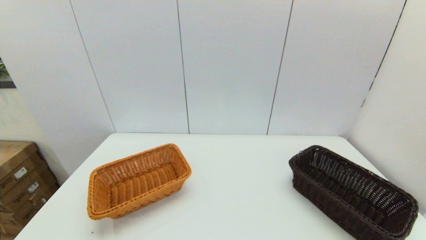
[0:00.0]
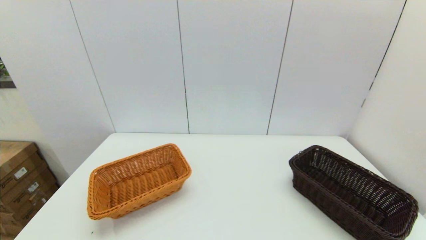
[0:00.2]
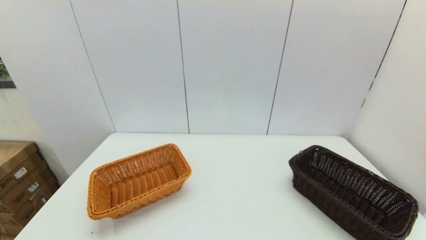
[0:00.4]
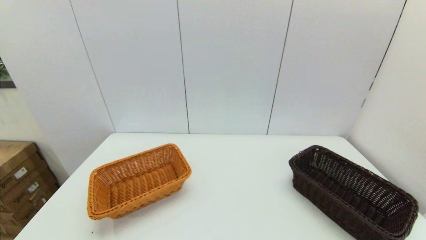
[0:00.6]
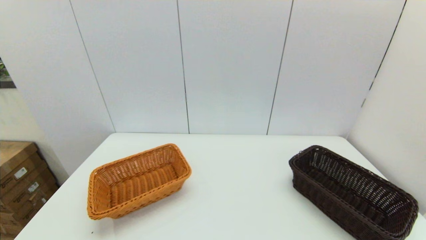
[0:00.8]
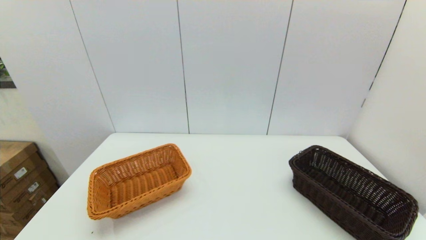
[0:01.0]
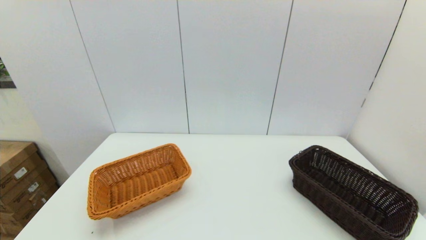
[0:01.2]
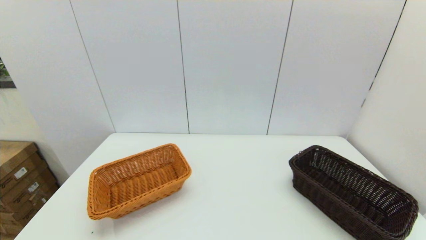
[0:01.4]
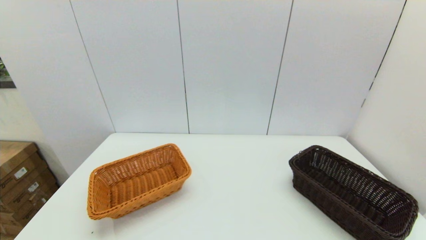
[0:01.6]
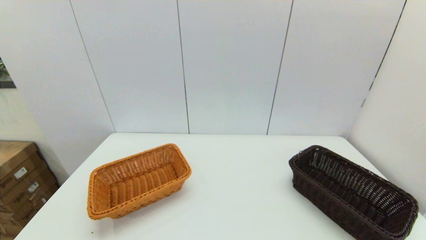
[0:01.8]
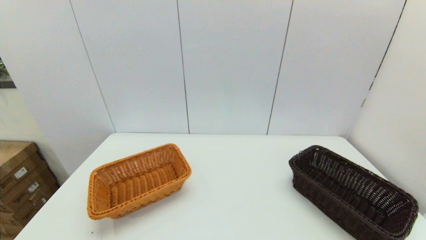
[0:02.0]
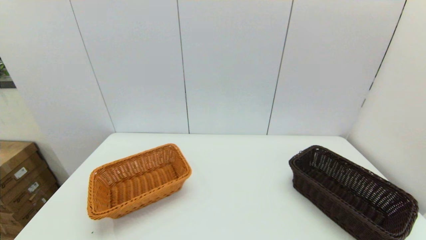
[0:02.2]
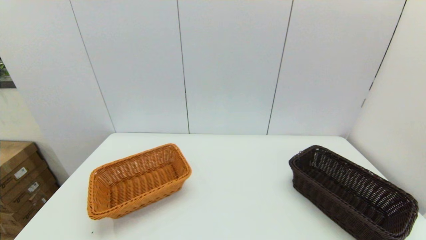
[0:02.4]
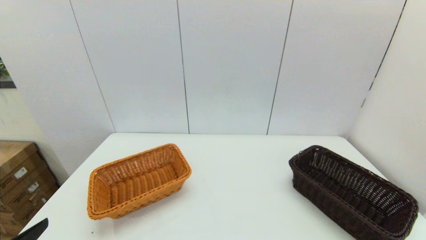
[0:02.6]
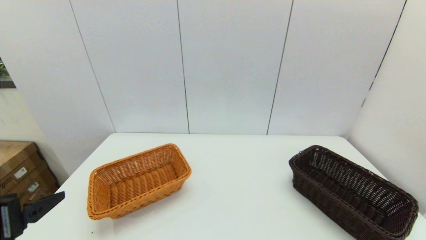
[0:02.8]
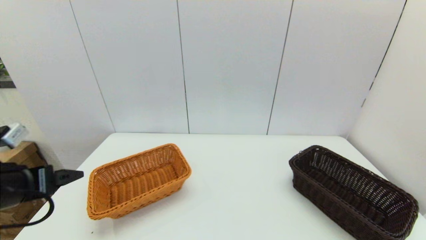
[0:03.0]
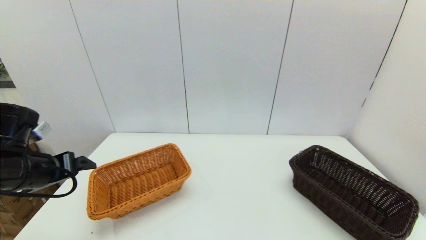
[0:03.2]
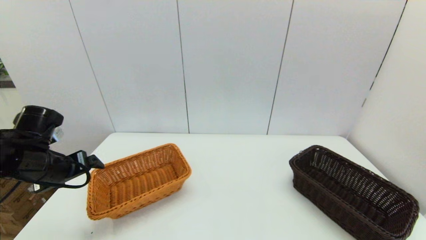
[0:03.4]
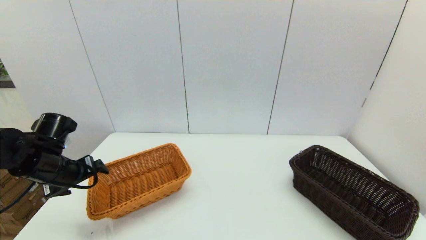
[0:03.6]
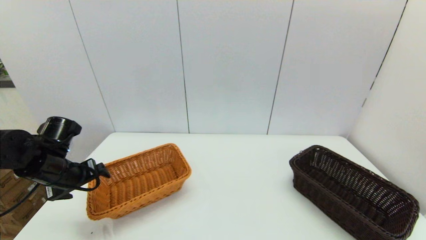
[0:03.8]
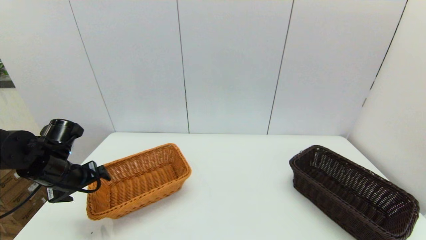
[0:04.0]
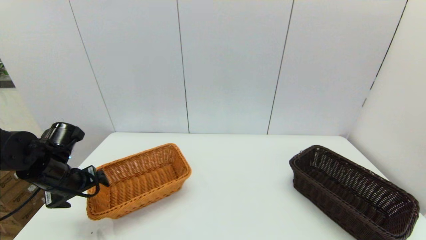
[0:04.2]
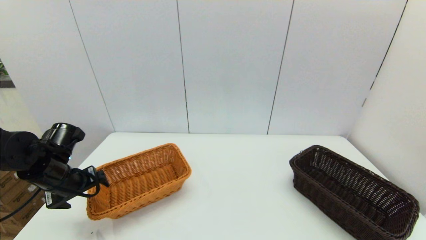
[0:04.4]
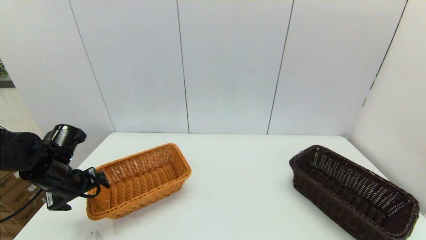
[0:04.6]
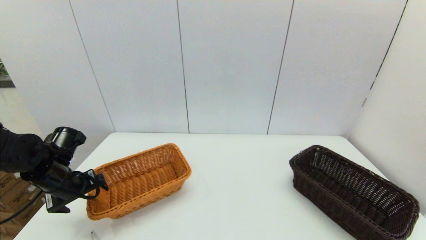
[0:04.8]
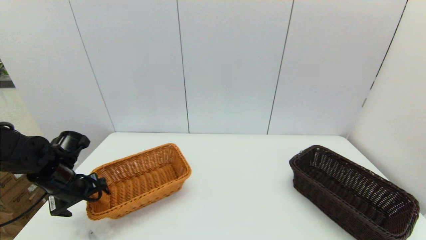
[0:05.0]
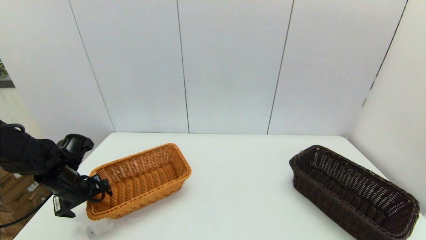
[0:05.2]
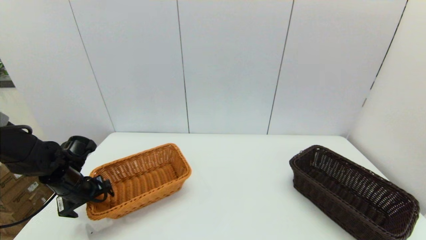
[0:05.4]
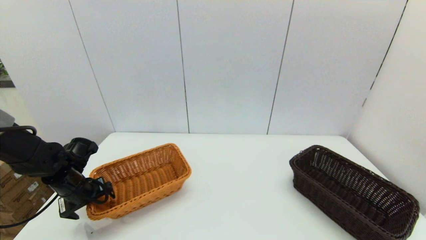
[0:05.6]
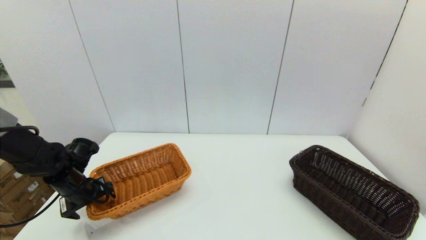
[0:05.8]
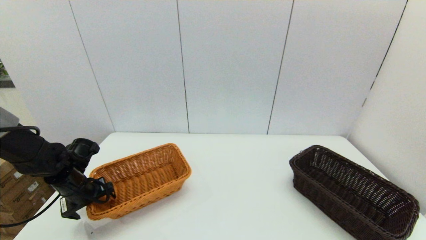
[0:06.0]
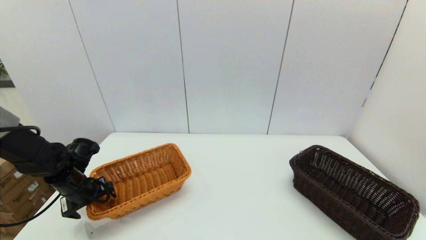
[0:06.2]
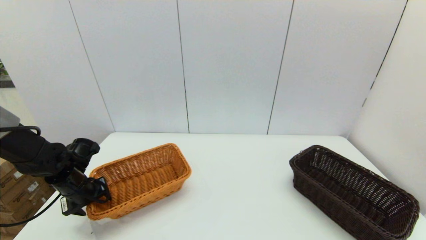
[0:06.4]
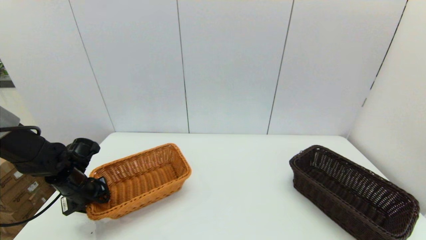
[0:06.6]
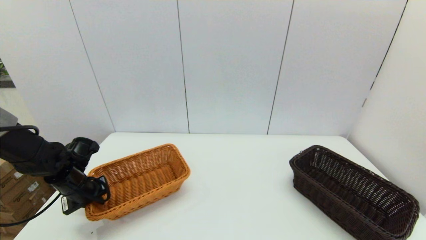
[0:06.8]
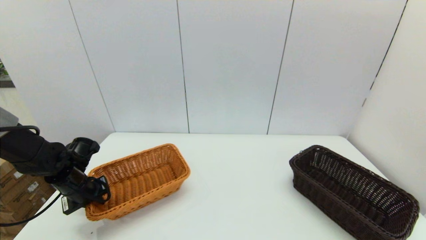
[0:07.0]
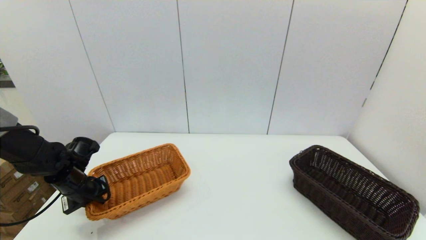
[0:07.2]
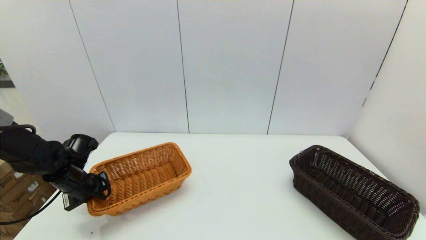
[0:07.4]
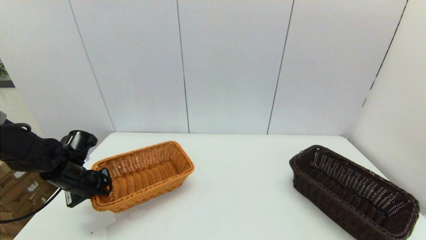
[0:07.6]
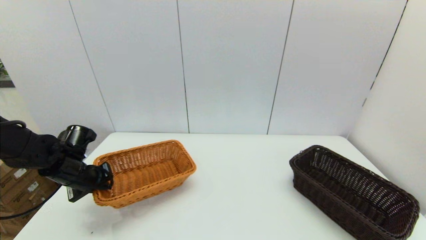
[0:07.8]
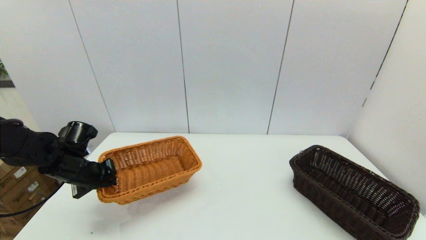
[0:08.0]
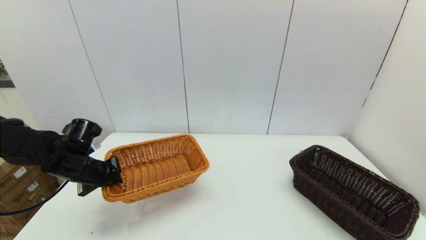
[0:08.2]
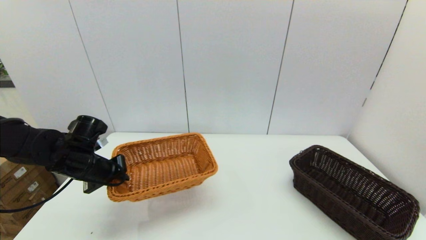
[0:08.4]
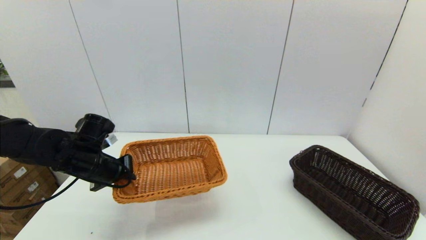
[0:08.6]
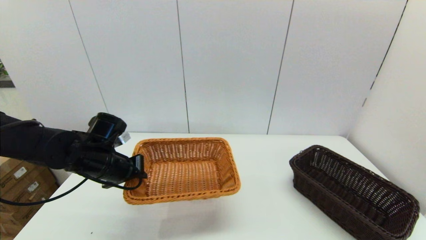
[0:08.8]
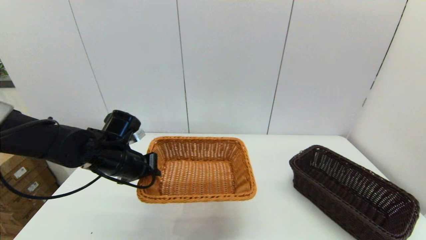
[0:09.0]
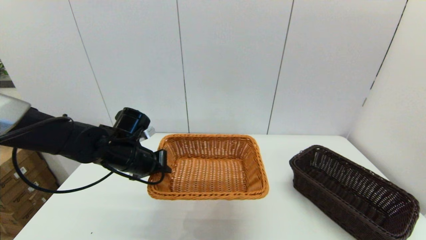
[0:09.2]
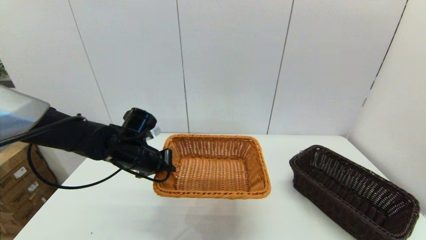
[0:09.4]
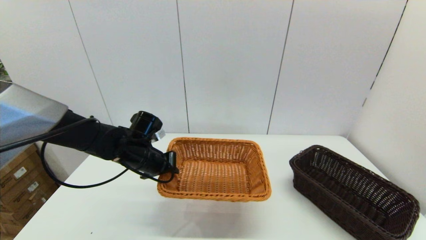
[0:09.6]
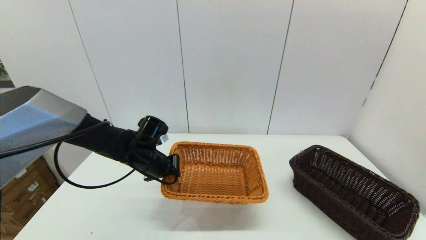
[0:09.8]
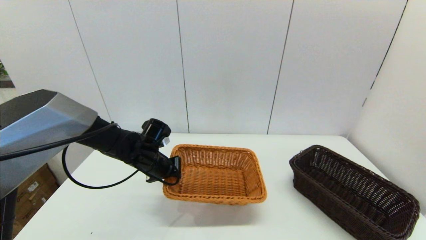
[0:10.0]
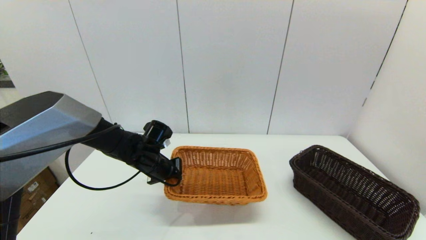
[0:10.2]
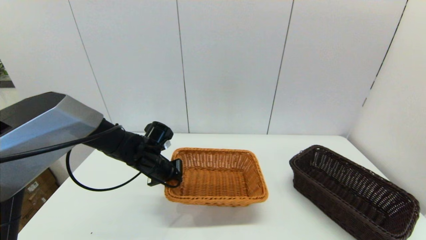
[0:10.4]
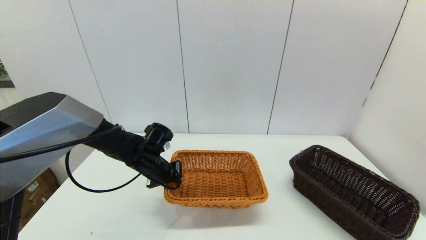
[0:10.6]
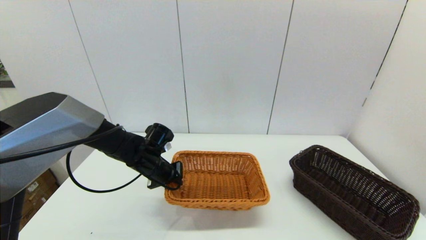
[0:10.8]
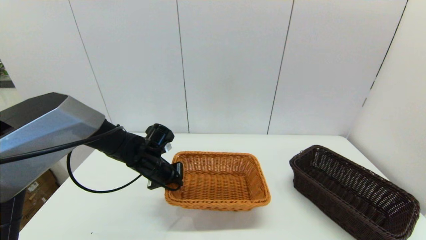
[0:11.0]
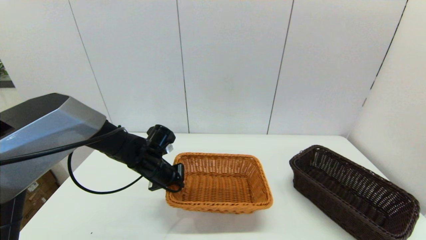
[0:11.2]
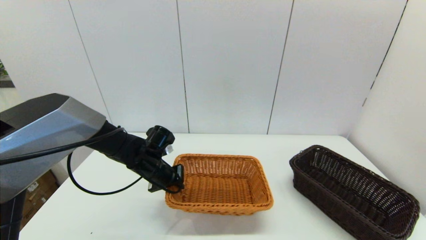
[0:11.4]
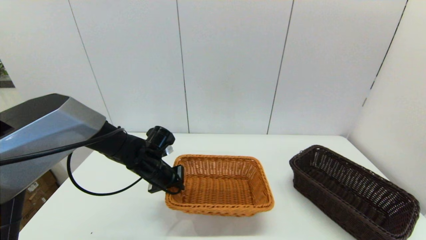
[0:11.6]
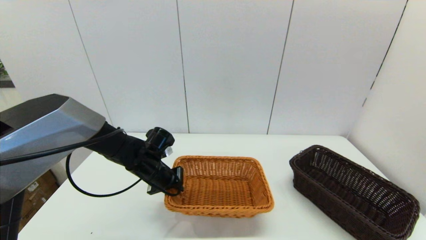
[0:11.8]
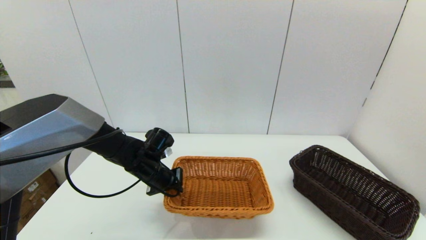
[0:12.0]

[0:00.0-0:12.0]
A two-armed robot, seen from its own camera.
Task of the whole recording: stack a basket on top of another basket.
Step, 0:02.0 to 0:07.2: Grasp the light basket with the left gripper.
0:00.0 to 0:01.6: Neither gripper changes place.
0:01.6 to 0:03.0: The left gripper goes roughly 20 cm forward and upward.
0:03.0 to 0:04.4: The left gripper moves forward and downward, roughly 15 cm.
0:04.4 to 0:06.0: The left gripper heads downward, covering some 5 cm.
0:06.0 to 0:07.6: The left gripper closes.
0:07.6 to 0:09.0: The left gripper heads to the right and upward, covering roughly 15 cm.
0:09.0 to 0:10.4: The left gripper shifts approximately 5 cm downward.
0:10.4 to 0:12.0: There are only small adjustments of the grippers.

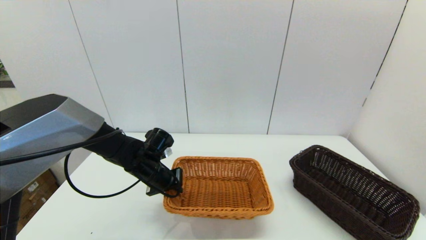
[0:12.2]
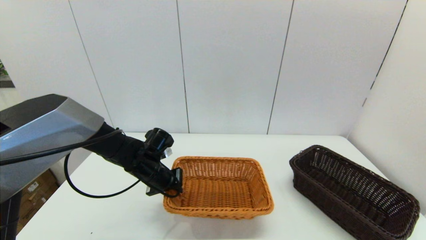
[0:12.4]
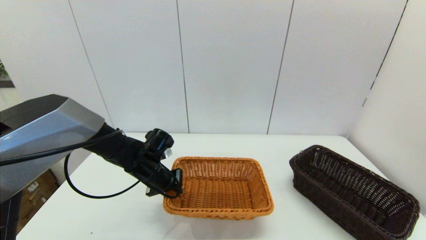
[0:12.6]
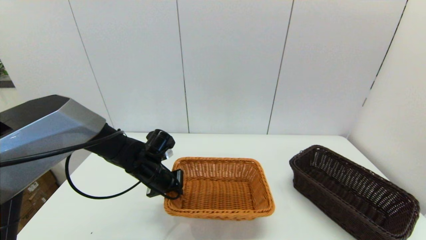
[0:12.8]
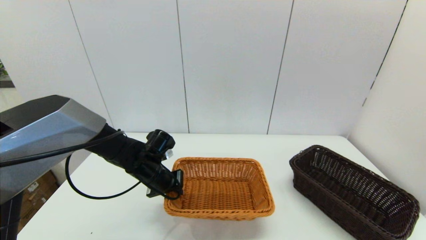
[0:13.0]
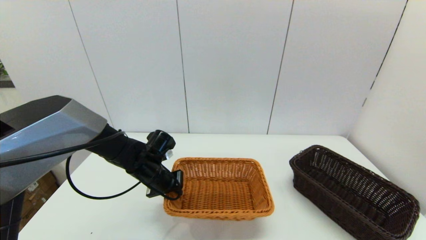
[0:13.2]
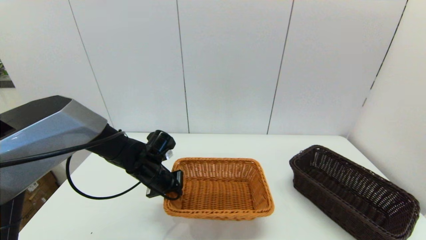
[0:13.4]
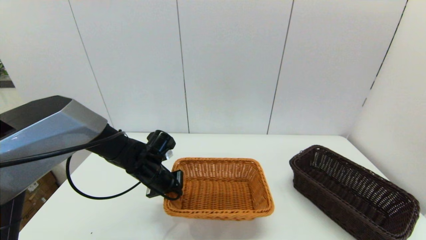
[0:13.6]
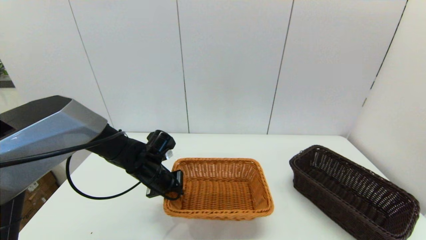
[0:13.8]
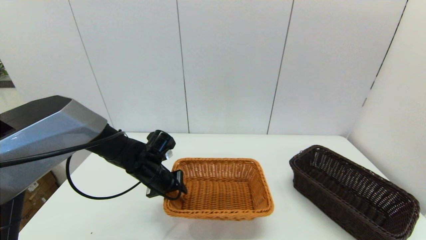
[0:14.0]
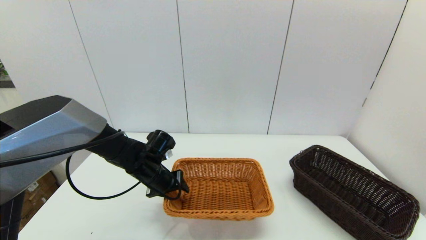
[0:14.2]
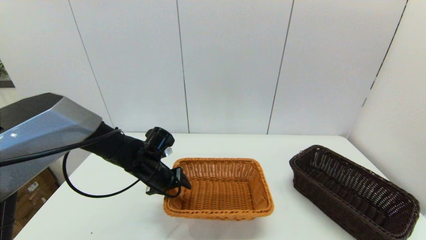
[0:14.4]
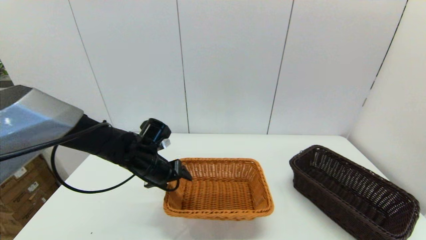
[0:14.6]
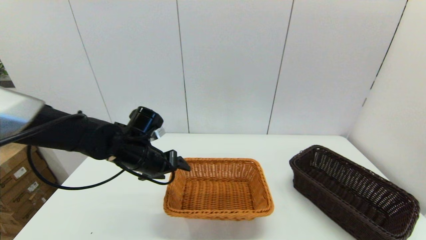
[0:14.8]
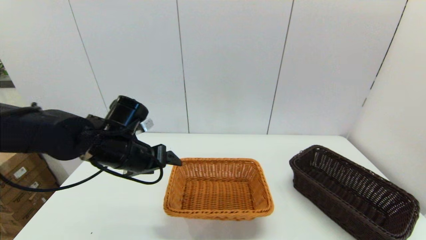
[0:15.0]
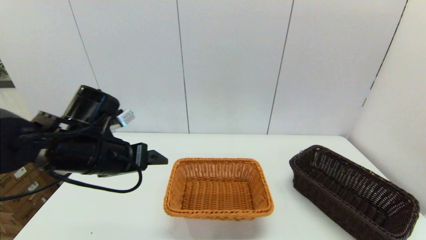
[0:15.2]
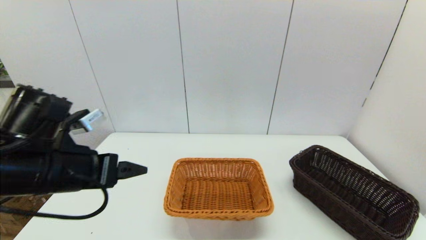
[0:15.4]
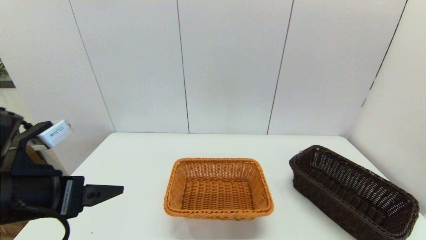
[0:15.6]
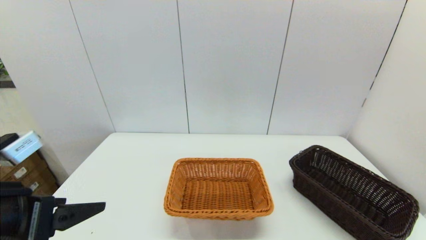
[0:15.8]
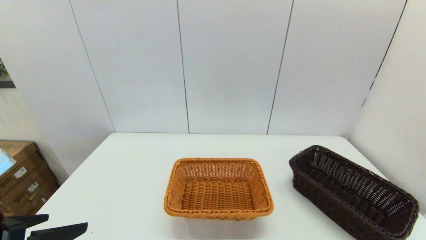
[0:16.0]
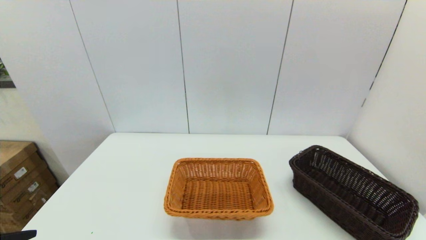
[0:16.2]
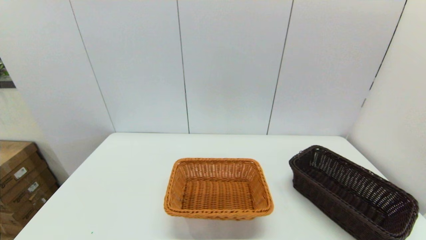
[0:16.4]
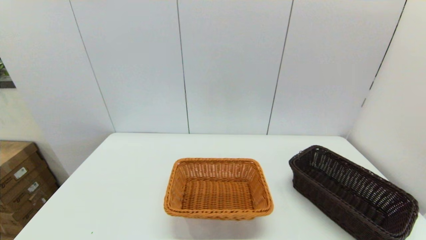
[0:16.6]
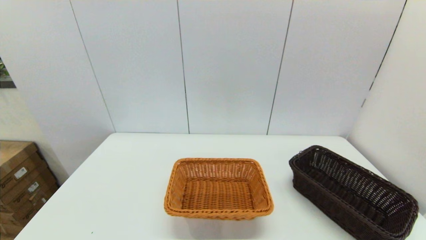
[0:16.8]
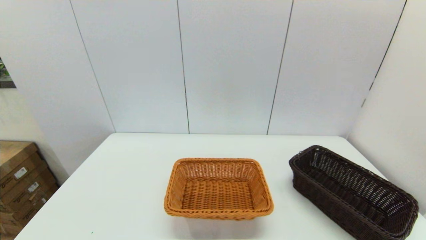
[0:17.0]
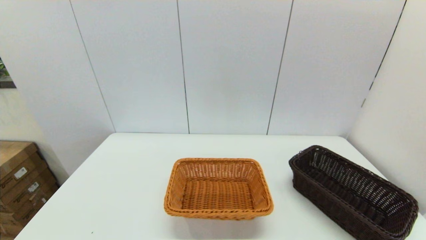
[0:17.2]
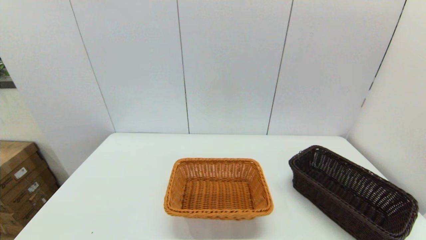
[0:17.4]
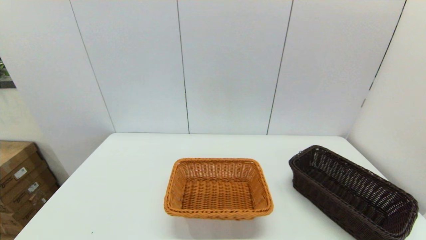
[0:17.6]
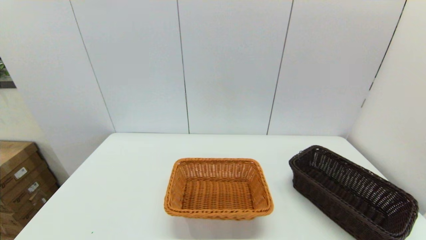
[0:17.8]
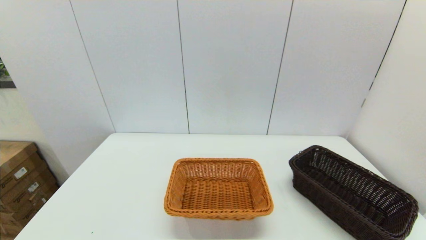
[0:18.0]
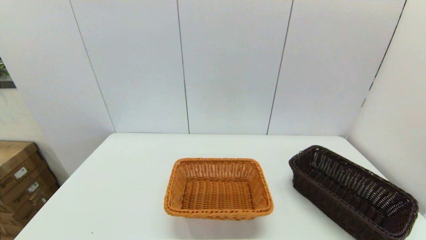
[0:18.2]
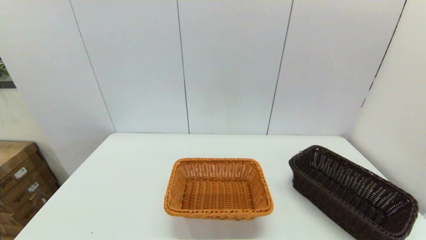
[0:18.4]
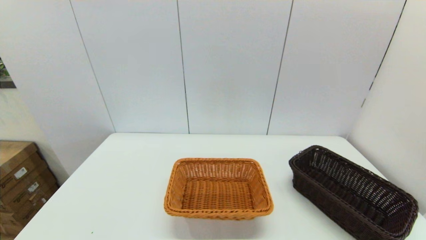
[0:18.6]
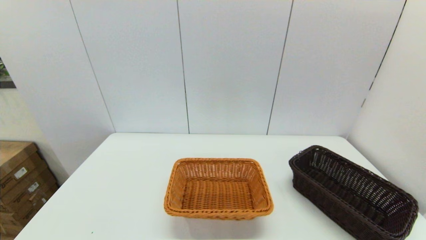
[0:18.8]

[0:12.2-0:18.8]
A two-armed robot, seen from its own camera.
Task of the whole recording: stack a basket on top of another basket.
Step, 0:12.2 to 0:15.4: Place the light basket on the middle of the table with the left gripper.
0:12.2 to 0:13.8: The two grippers keep their place.
0:13.8 to 0:15.4: The left gripper shifts roughly 25 cm upward, backward and to the left, and opens up.
0:15.4 to 0:17.2: The left gripper heads backward and downward, covering approximately 20 cm.
